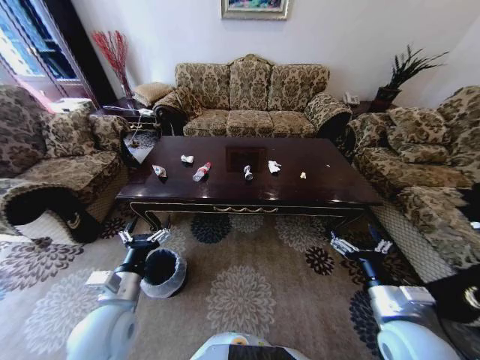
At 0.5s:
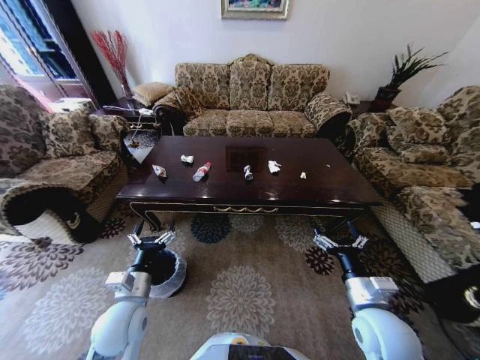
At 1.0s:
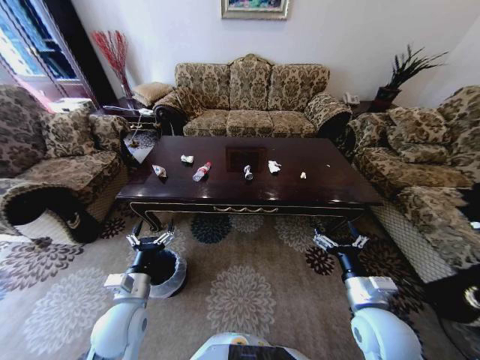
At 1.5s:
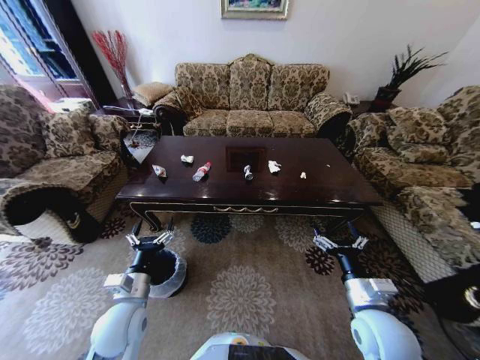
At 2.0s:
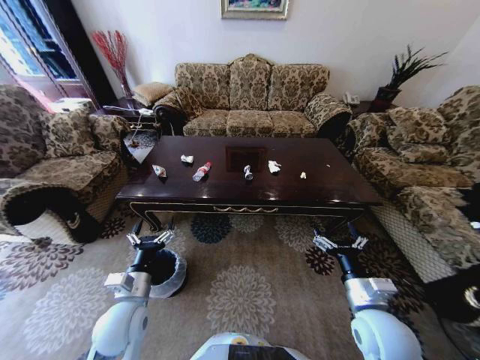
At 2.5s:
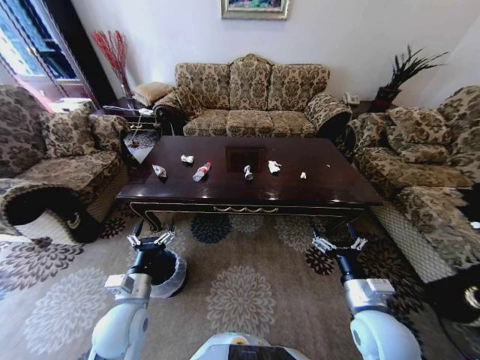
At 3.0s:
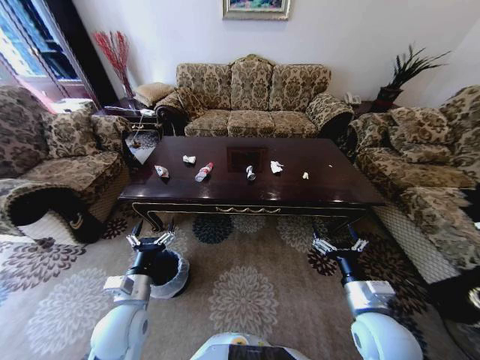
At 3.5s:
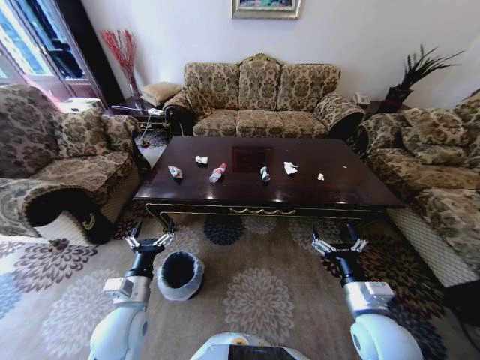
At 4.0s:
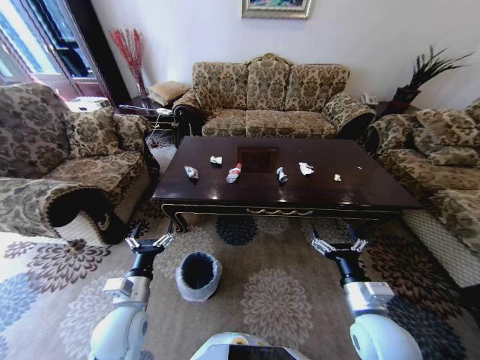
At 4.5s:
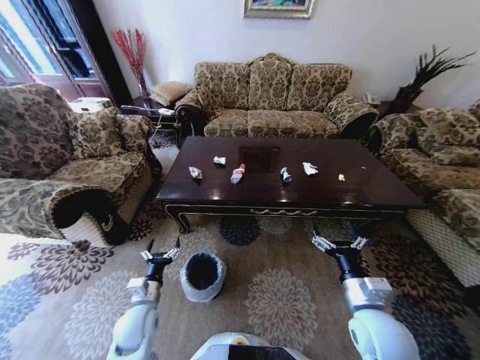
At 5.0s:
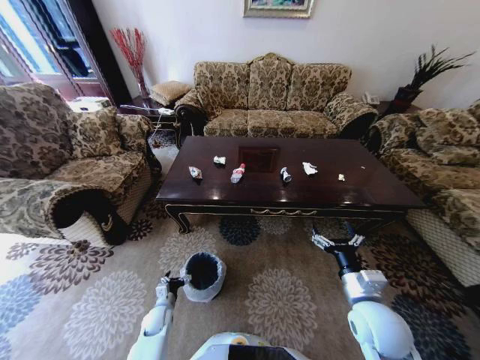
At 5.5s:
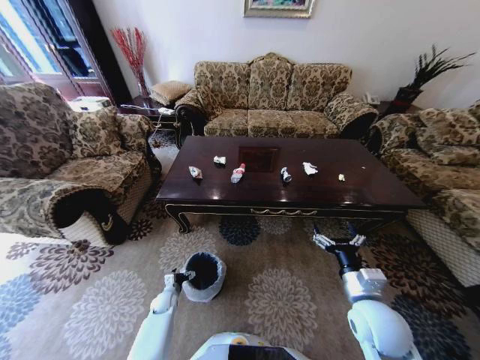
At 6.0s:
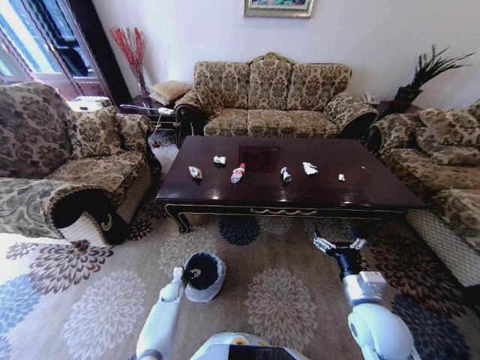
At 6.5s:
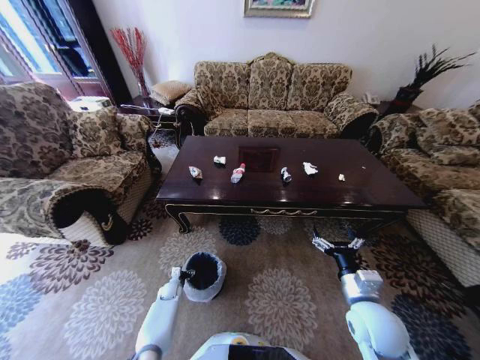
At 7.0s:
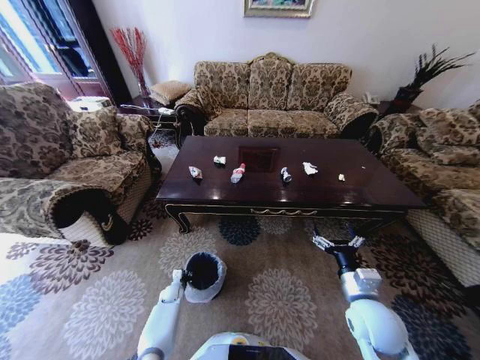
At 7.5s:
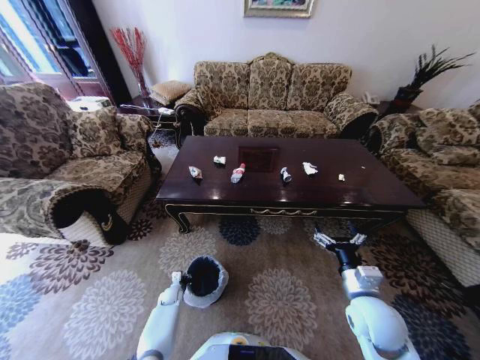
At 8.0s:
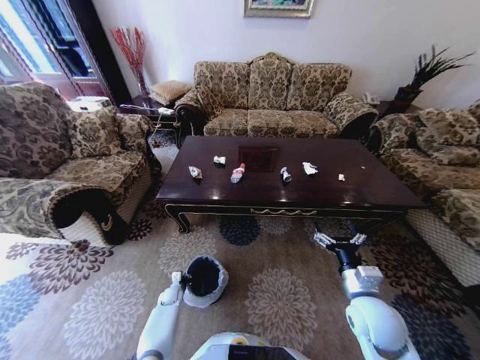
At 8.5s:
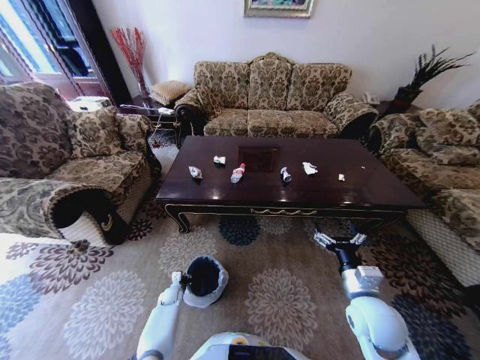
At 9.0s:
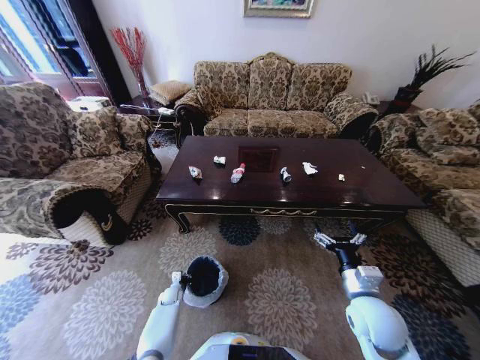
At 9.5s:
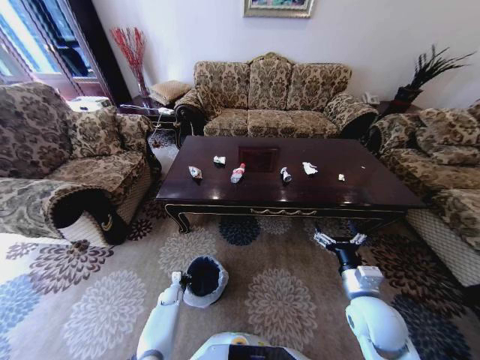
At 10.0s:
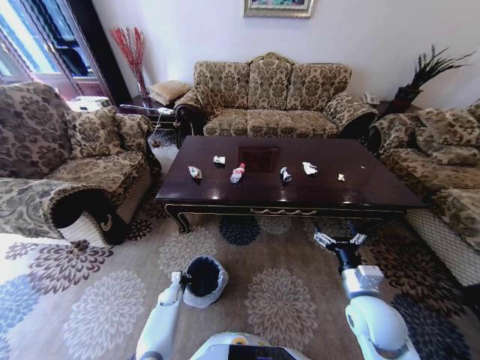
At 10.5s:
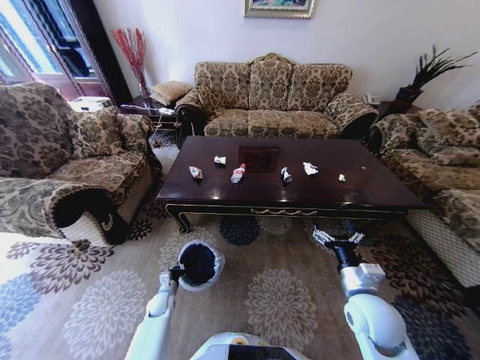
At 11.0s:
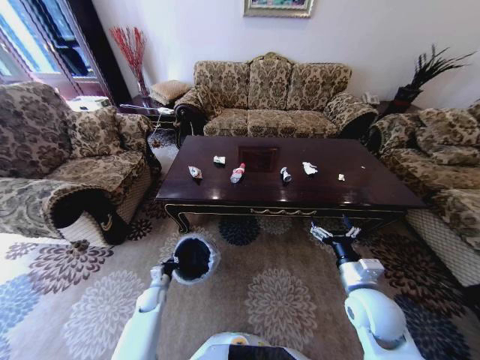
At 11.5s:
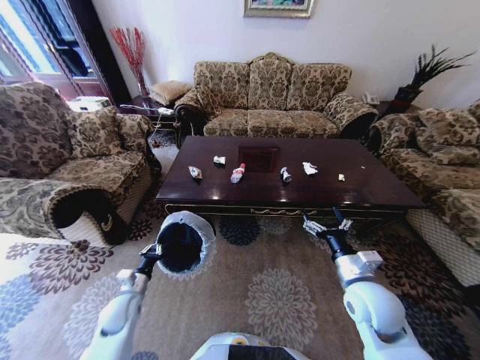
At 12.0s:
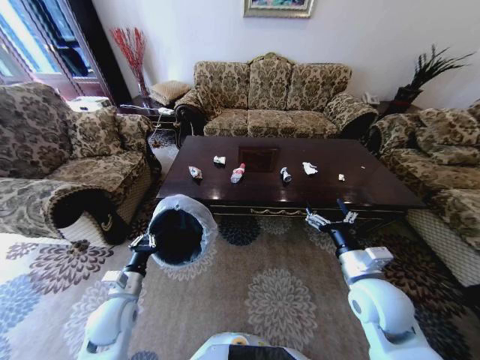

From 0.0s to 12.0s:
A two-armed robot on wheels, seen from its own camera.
Task of the whole recording: Move to the front of the table and place the trash on the table into the trash bin.
From 4.0s to 6.0s: The left gripper shifts some 35 cm downward and forward.
From 6.0s to 8.0s: The left gripper closes.
From 8.0s to 10.0s: Both grippers stay about where they are.
From 10.0s to 12.0s: The right gripper is displaced upward by approximately 5 cm, while the left gripper is displaced upward by about 30 cm.

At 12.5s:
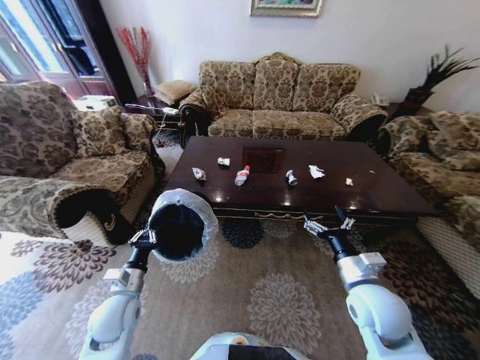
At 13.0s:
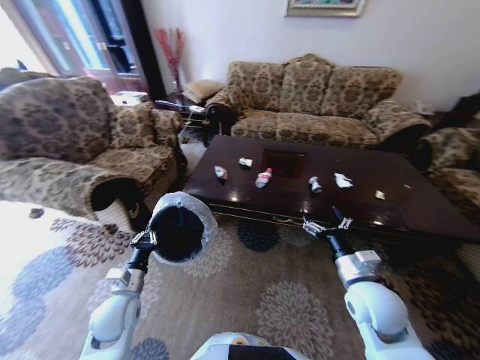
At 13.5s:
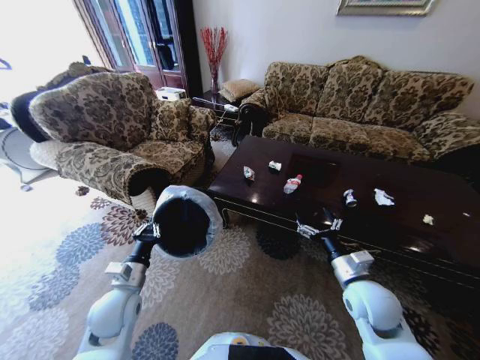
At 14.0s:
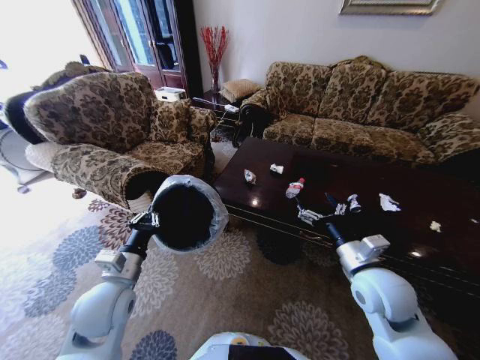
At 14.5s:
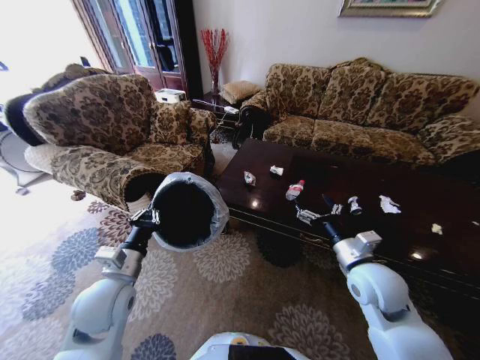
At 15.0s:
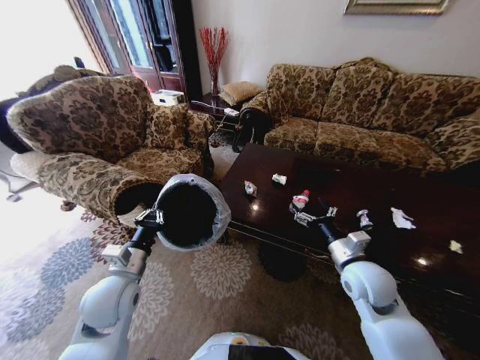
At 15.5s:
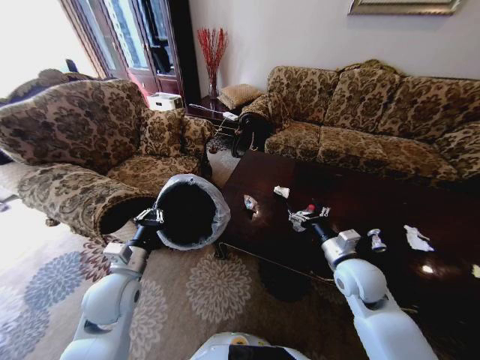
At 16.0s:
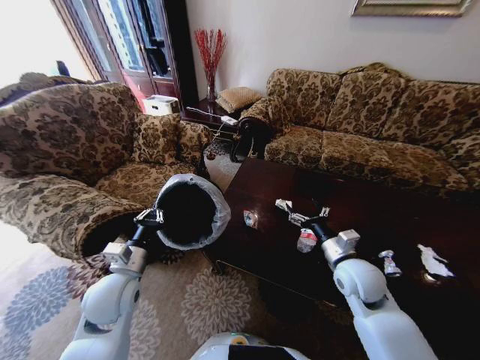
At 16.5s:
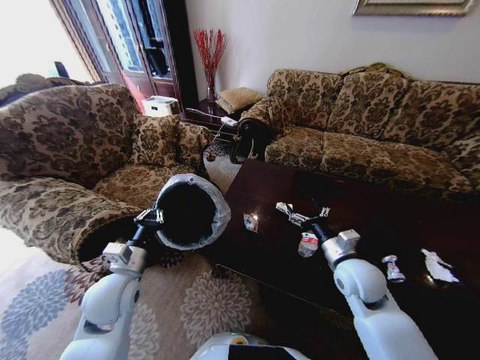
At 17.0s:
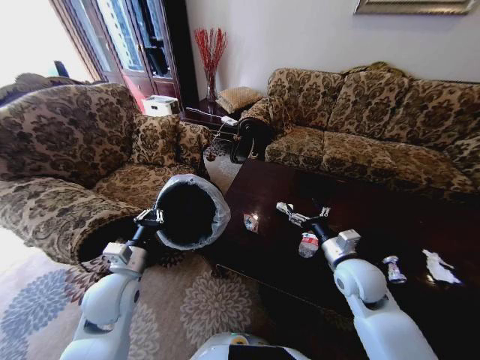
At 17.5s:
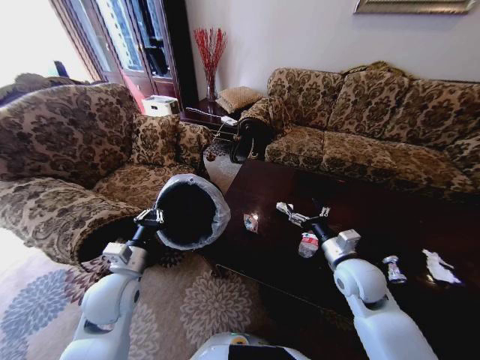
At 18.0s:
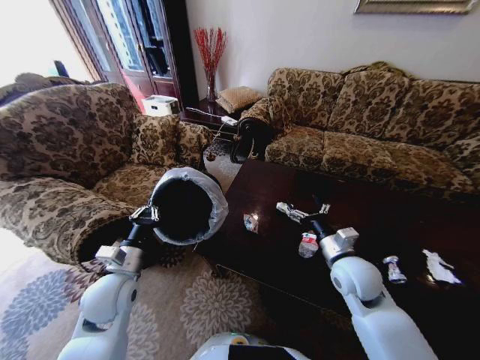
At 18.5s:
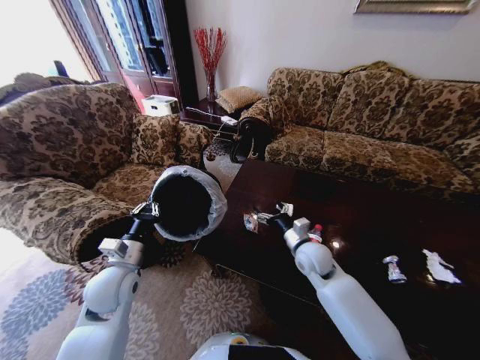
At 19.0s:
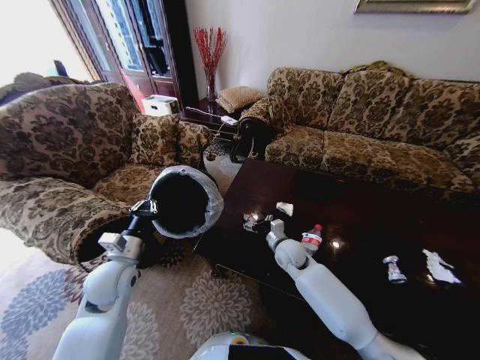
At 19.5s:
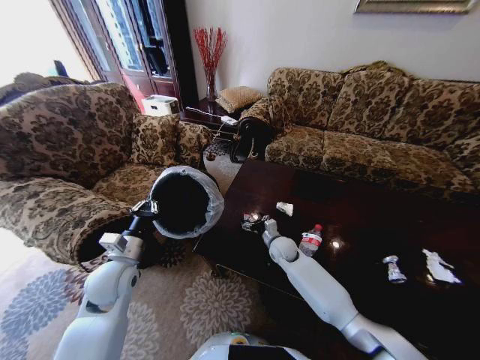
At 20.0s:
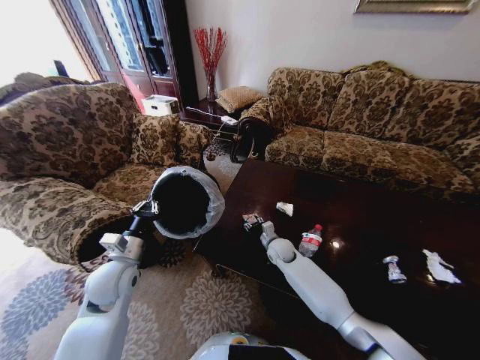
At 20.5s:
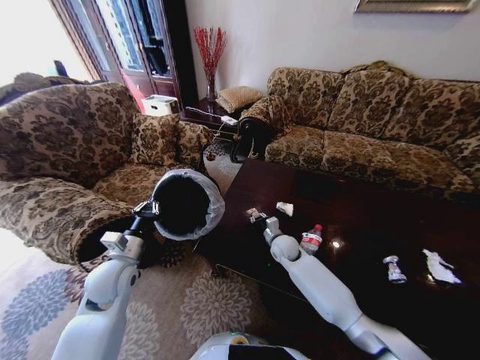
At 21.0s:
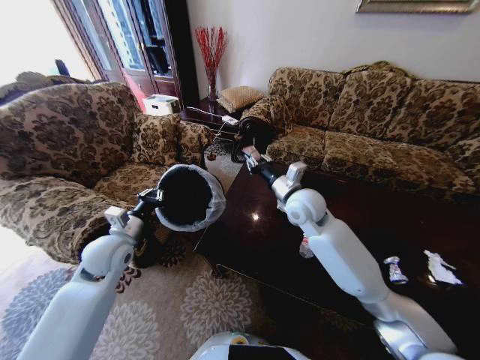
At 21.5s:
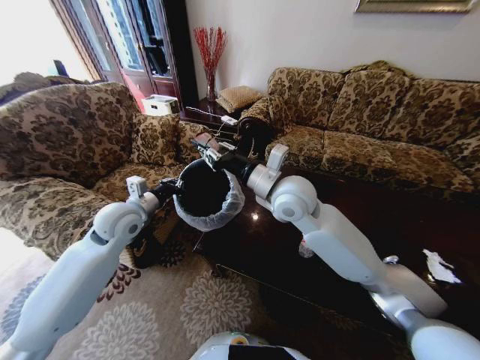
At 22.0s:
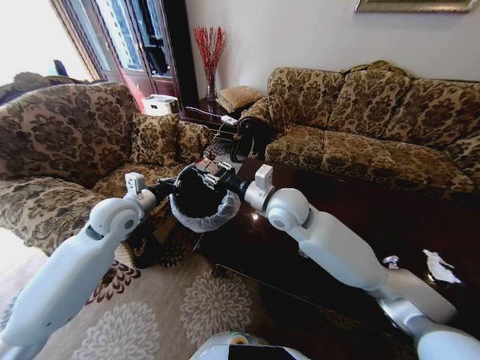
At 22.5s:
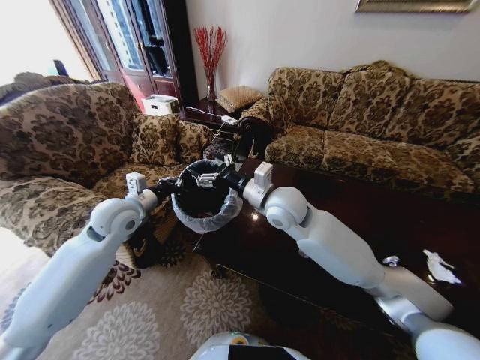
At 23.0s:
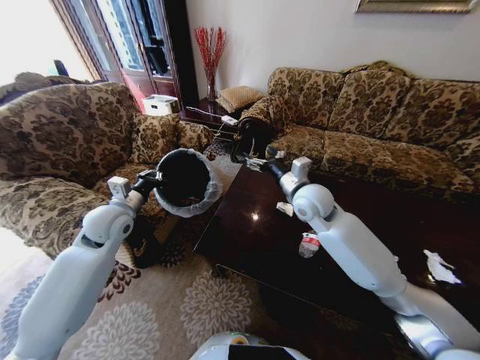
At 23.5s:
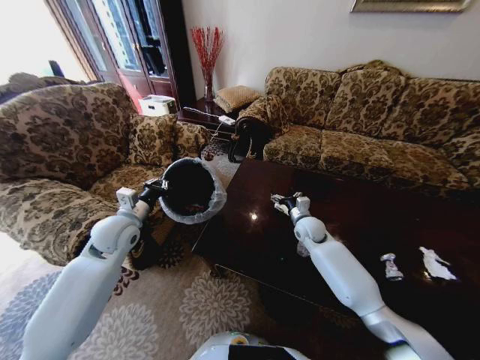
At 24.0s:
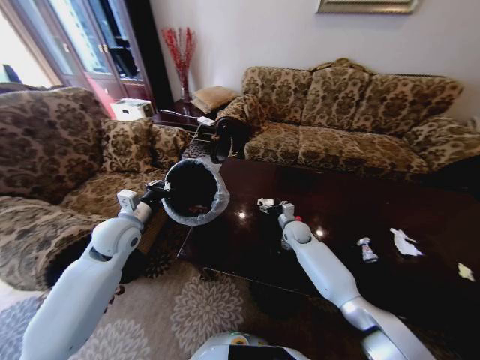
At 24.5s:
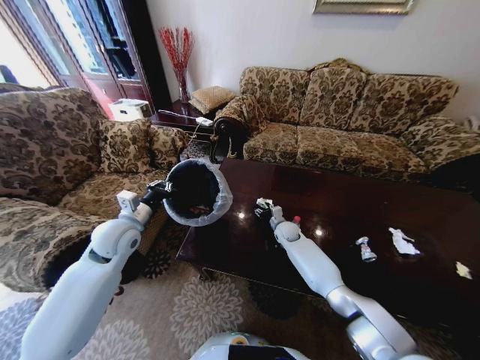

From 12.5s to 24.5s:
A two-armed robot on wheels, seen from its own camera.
Task of the whole recording: Move to the front of the table and place the trash on the table into the trash bin.
From 12.5s to 14.5s: The left gripper goes about 10 cm upward.
From 16.5s to 18.5s: The right gripper goes approximately 10 cm to the left and forward.
From 18.5s to 20.5s: The right gripper moves downward, forward and to the left, about 15 cm, and closes up.
From 20.5s to 22.5s: The right gripper moves upward, approximately 25 cm, and opens up, while the left gripper shifts some 15 cm upward and forward.
From 22.5s to 24.5s: The right gripper is displaced downward and forward by roughly 30 cm. Meanwhile the left gripper changes place by roughly 5 cm.

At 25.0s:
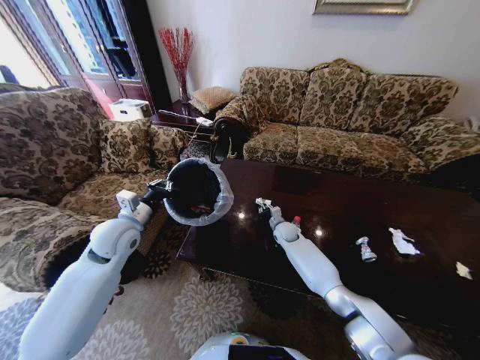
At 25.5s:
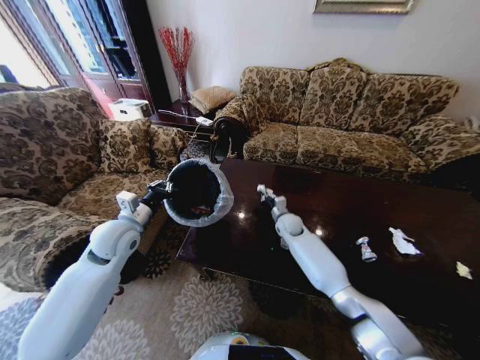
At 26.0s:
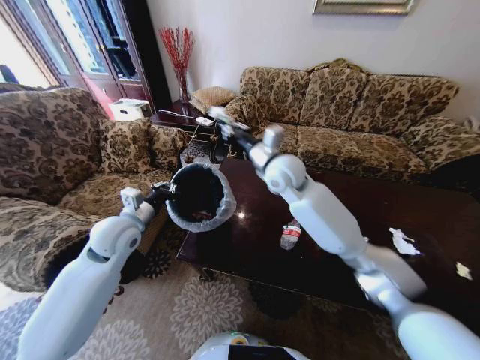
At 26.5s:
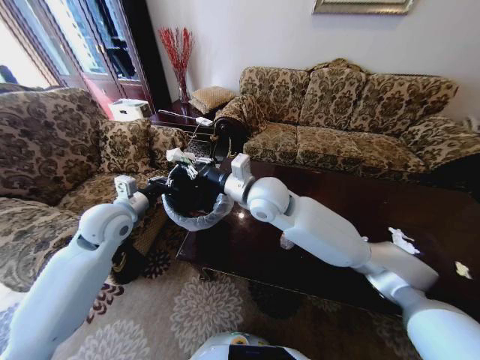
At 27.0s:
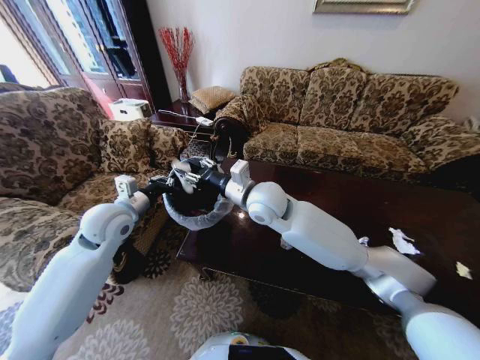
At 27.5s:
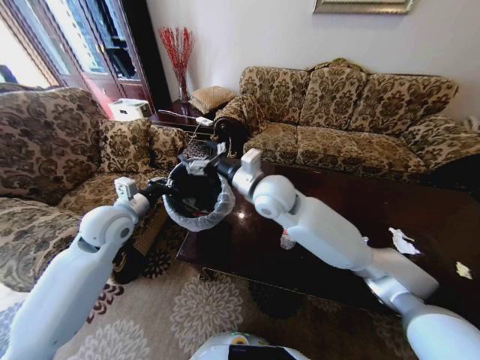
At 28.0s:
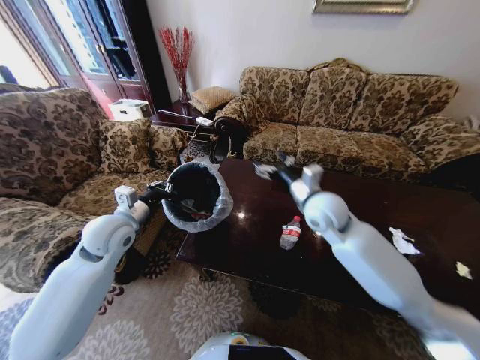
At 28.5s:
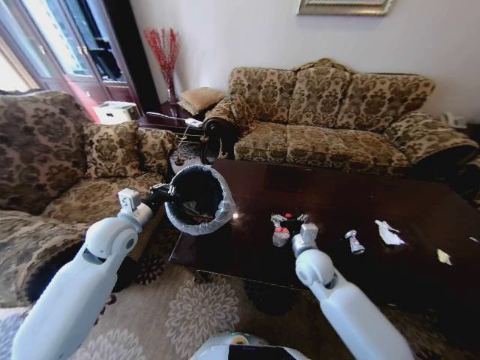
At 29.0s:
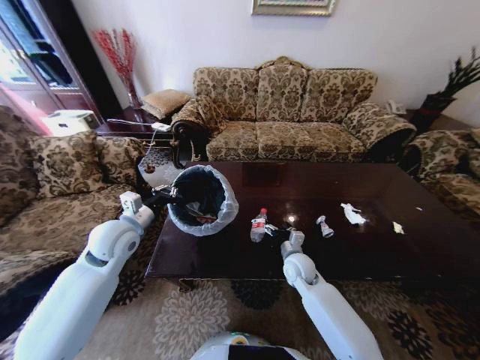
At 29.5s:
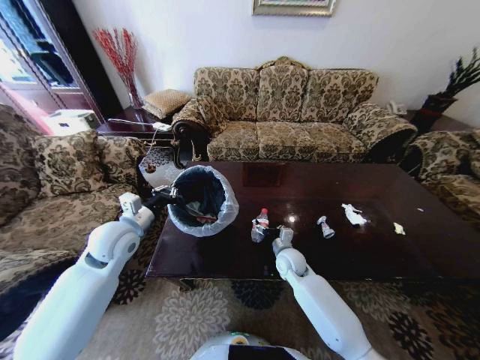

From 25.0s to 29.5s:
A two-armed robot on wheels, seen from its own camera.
Task of the whole recording: Move to the front of the table and place the trash on the table into the trash bin.
From 25.0s to 27.0s: The right gripper heads upward, to the left and backward, covering about 35 cm.
From 27.0s to 29.5s: The right gripper moves downward and to the right, some 30 cm, and opens.
